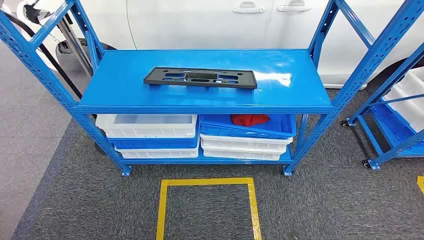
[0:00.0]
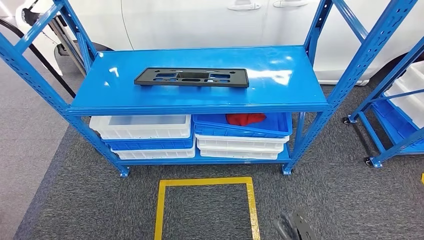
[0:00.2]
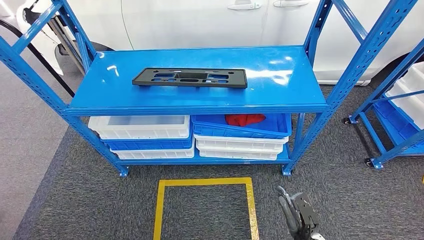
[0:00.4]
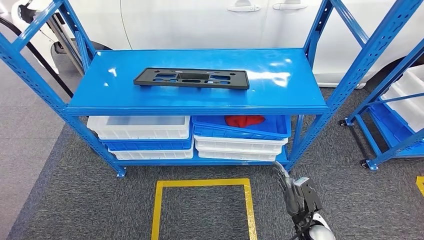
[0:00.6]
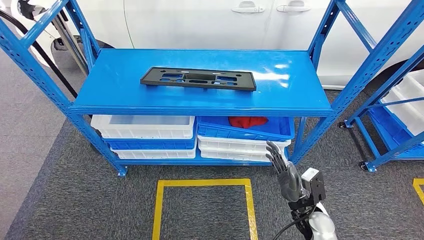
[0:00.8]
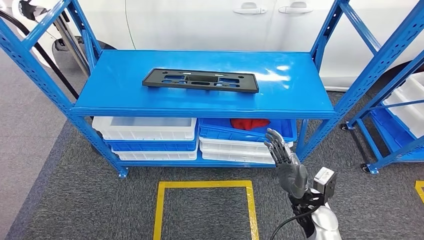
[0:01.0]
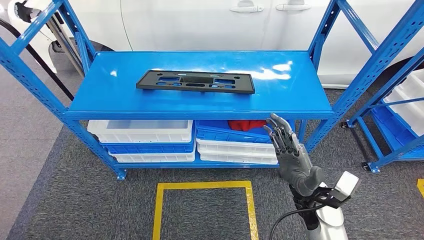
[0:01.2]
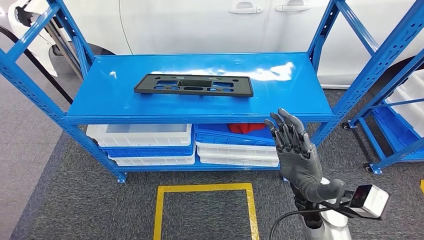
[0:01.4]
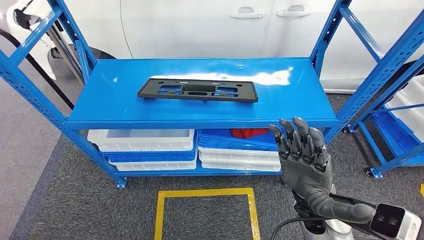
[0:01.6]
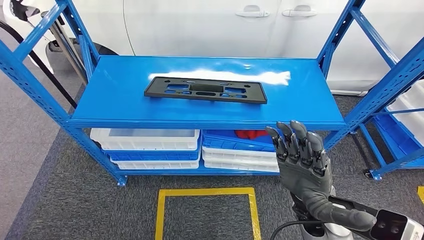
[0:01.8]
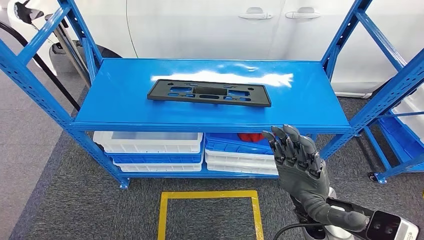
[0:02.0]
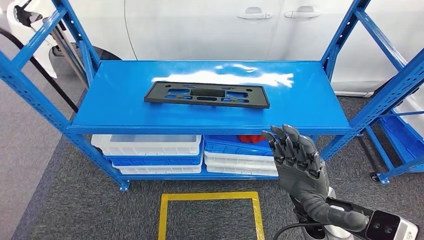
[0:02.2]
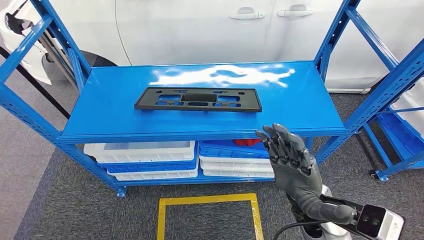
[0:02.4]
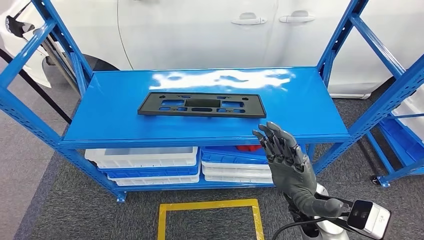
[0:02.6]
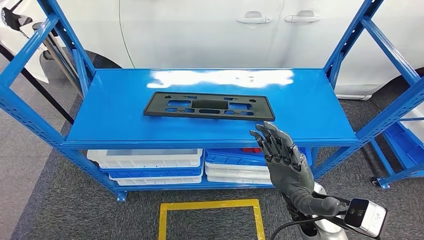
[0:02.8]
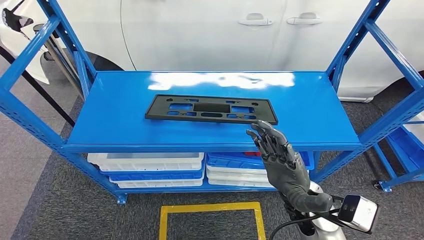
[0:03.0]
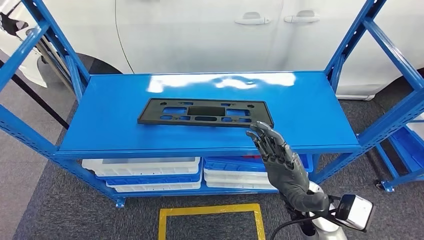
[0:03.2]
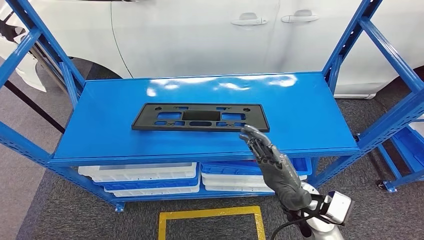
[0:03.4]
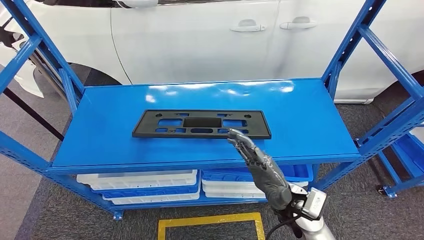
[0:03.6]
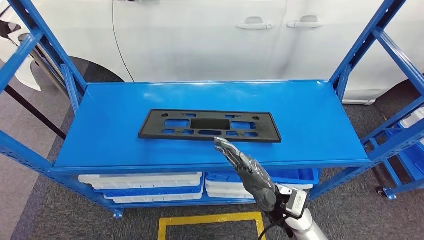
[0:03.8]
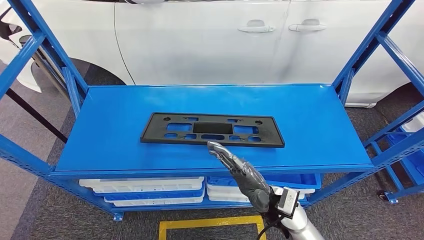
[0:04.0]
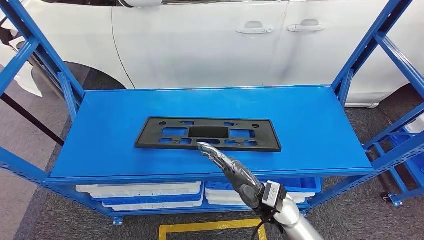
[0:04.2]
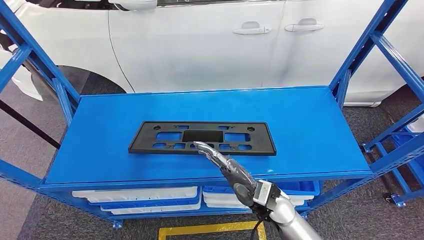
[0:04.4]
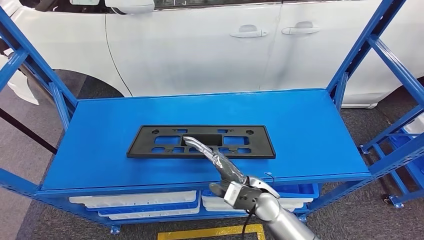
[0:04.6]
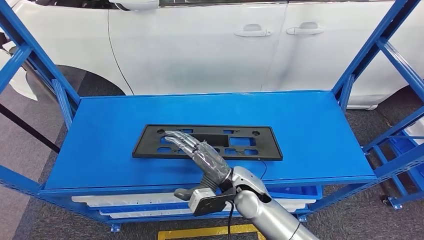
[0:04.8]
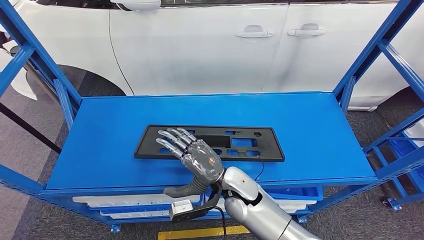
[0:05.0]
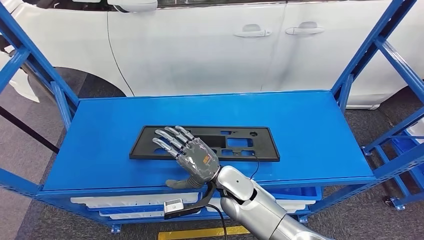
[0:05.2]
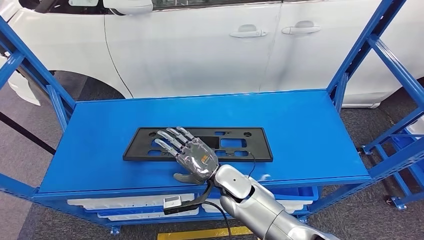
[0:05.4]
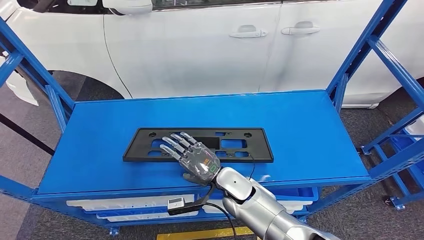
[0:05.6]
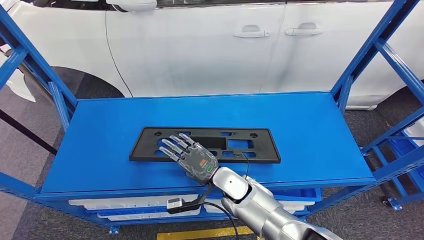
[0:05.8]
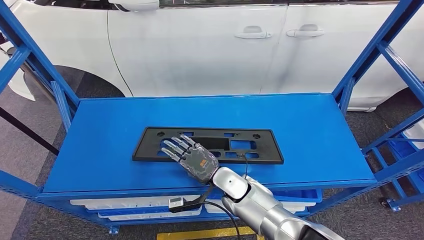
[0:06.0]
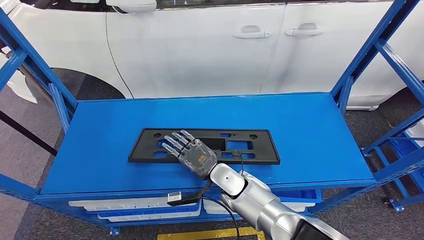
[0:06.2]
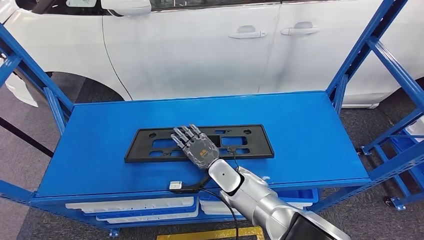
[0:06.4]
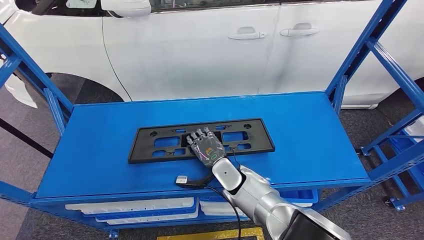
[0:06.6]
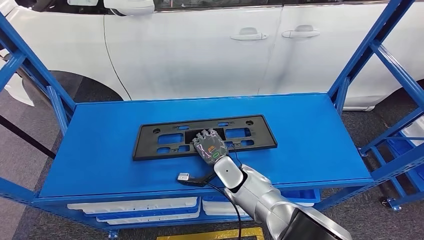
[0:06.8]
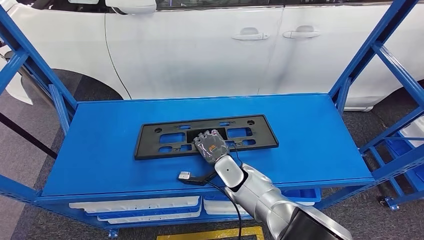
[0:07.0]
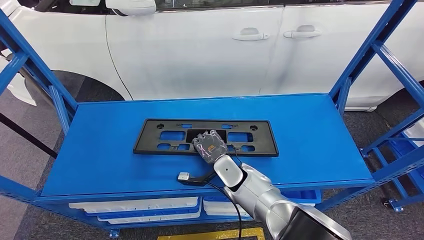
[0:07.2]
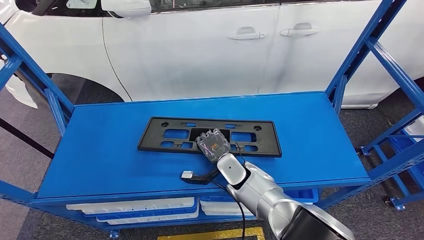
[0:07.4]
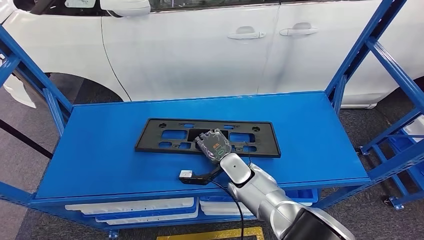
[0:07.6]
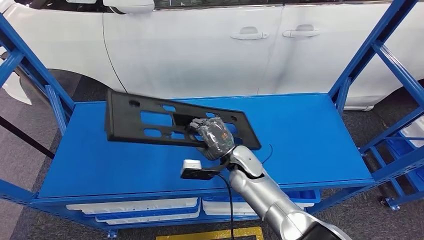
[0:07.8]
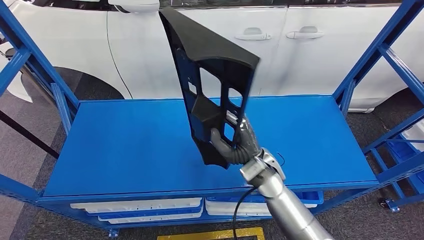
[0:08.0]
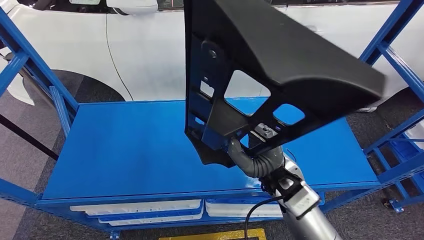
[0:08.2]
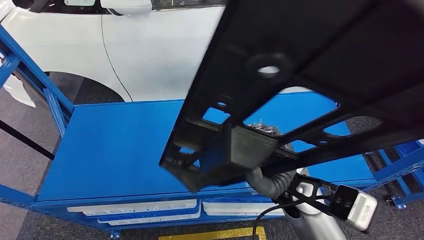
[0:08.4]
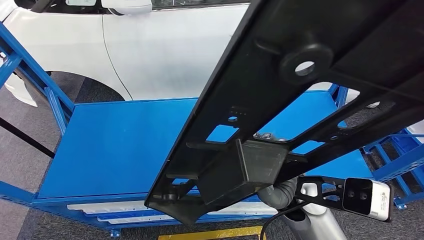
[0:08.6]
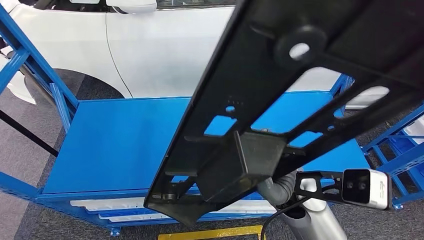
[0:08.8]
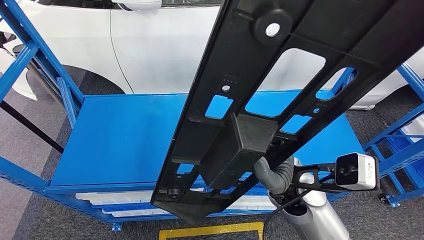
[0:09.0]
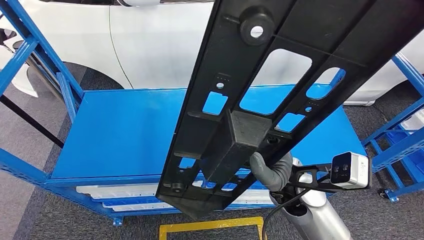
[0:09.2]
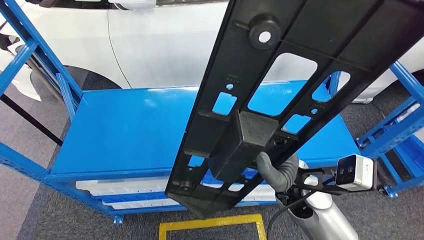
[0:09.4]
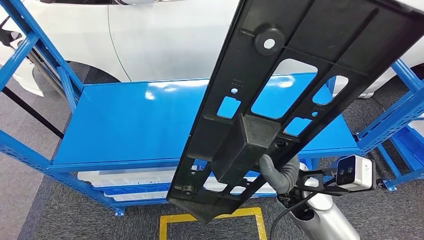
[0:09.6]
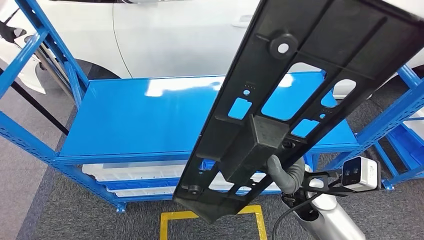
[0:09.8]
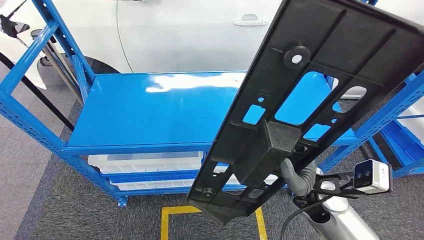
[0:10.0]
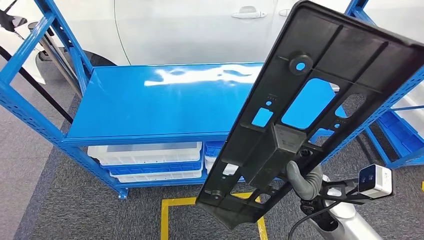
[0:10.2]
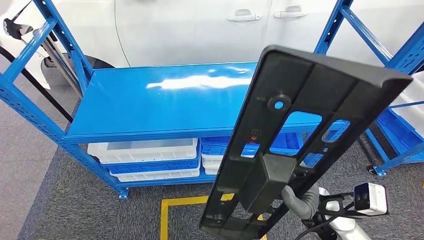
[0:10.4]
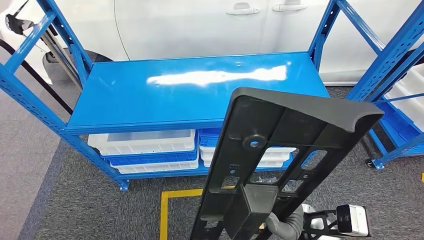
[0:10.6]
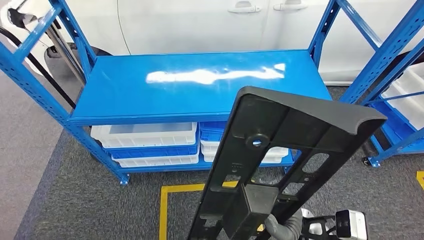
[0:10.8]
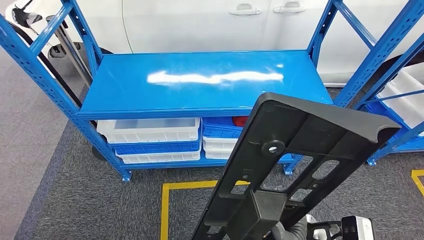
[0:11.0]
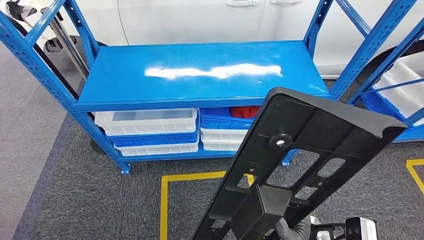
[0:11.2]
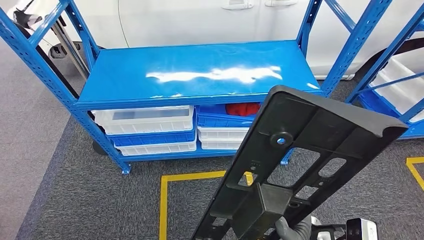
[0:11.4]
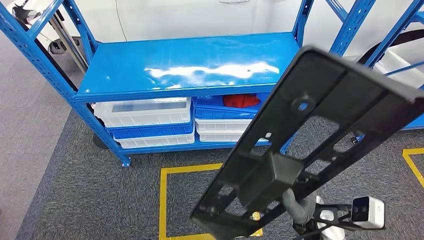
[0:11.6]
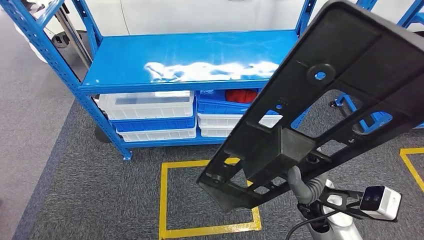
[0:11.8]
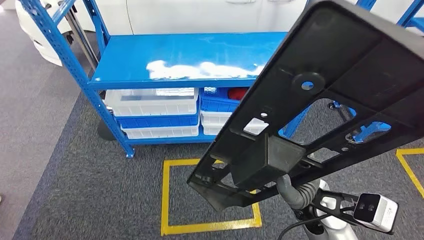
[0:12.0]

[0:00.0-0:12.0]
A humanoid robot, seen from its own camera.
Step, 0:00.0 to 0:09.2: Pick up the large material from the shelf.

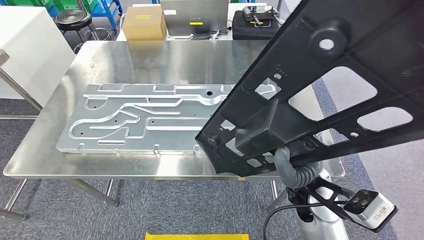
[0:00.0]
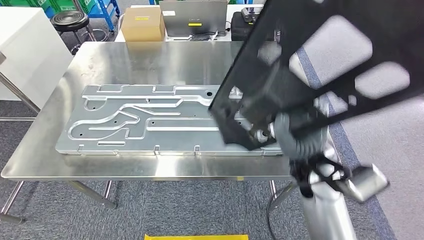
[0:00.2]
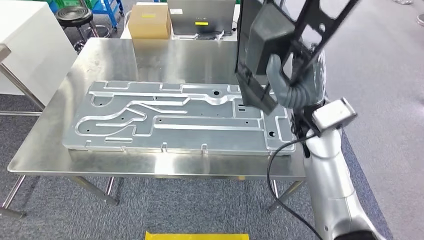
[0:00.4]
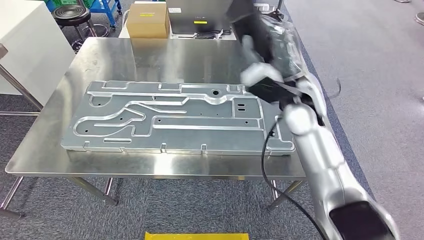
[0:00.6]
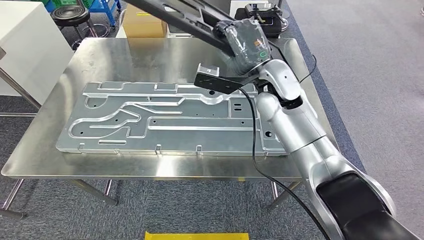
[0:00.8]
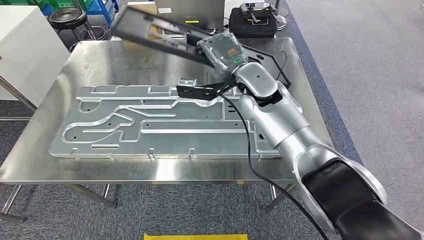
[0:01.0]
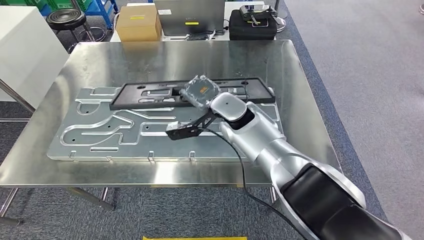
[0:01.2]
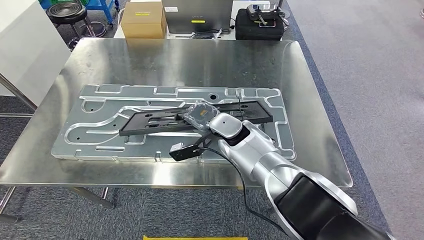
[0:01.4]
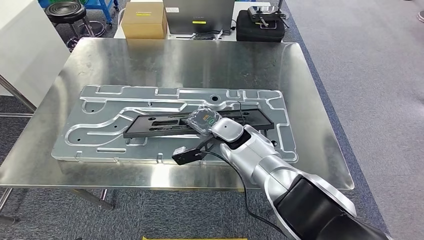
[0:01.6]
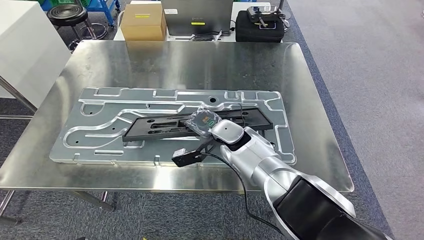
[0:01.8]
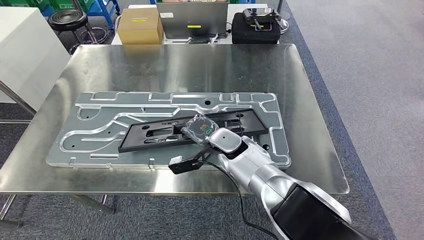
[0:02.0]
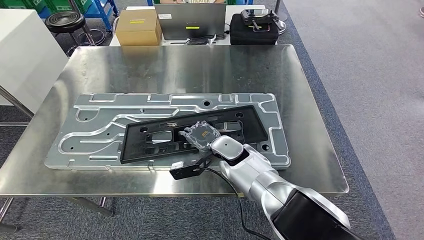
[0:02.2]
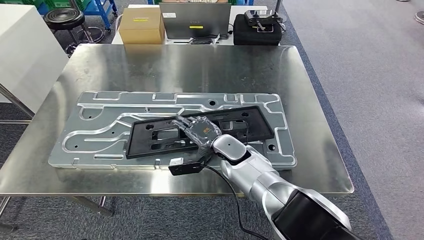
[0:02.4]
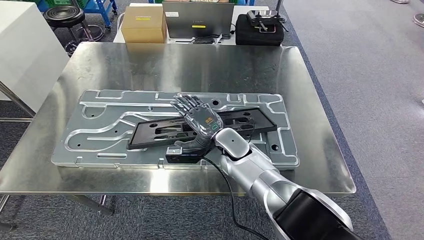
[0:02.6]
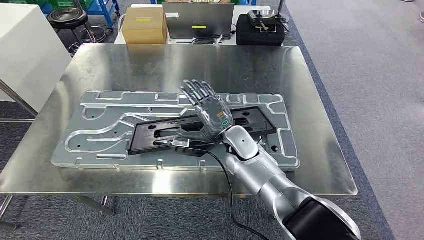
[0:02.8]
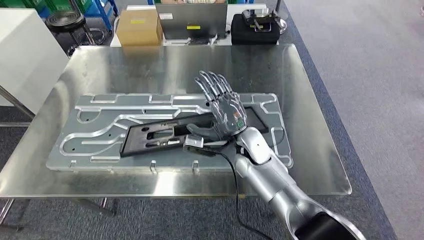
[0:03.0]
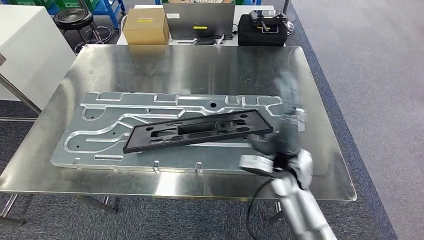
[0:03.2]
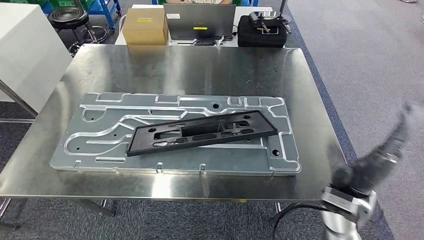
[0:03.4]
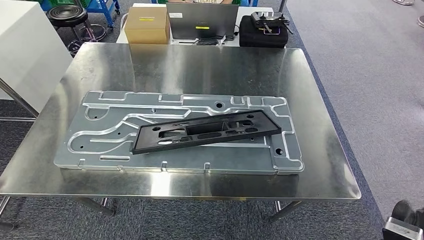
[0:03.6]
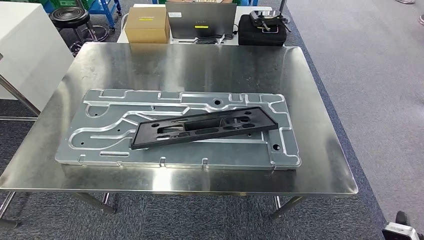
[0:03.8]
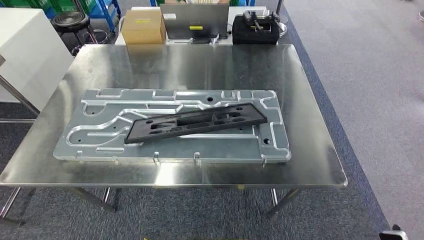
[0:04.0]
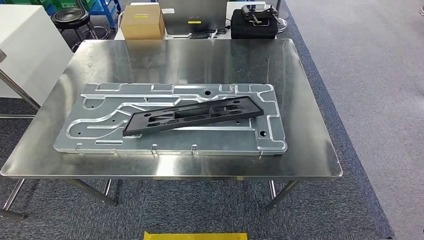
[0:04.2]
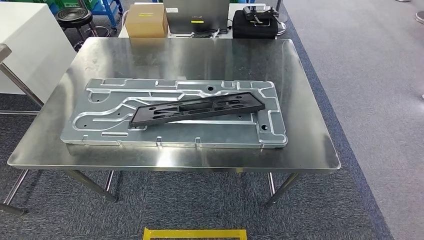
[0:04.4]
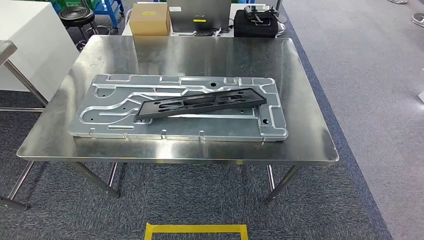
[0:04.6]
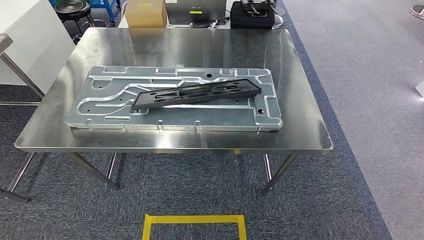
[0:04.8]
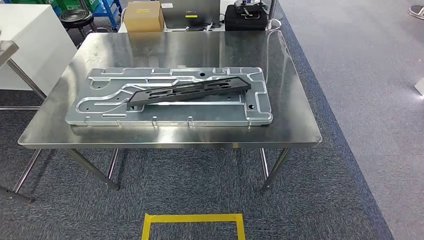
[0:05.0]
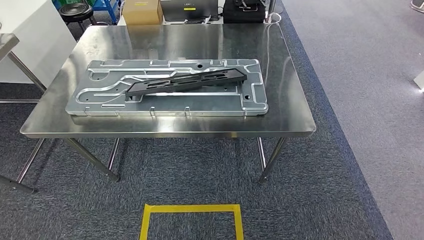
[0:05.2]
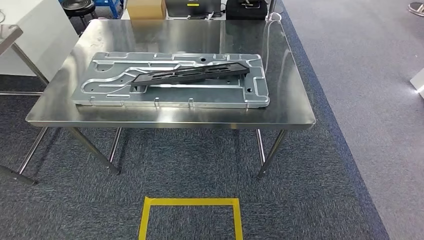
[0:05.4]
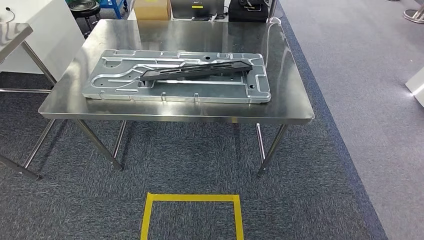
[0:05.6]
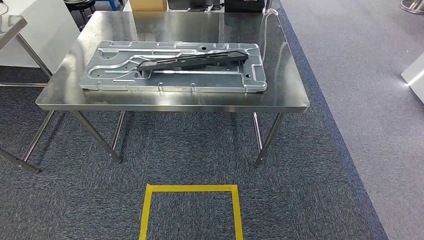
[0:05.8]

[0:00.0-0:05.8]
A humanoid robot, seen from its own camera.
Step, 0:01.8 to 0:04.4: Insert the large material into the corresponding hole on the workbench.
